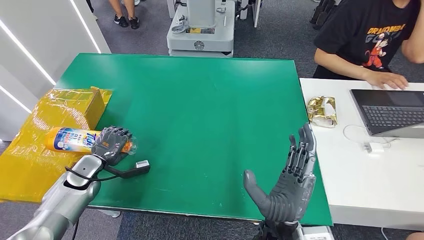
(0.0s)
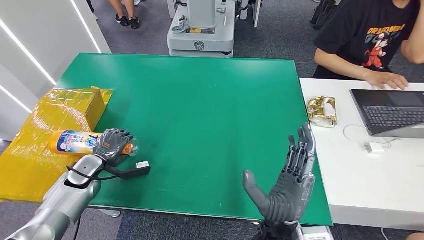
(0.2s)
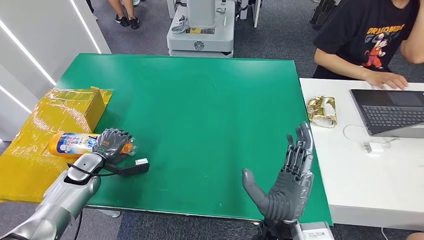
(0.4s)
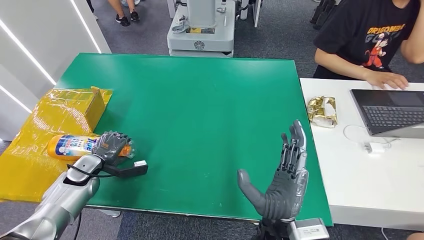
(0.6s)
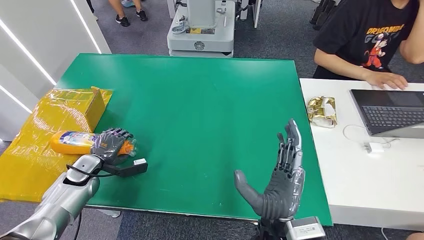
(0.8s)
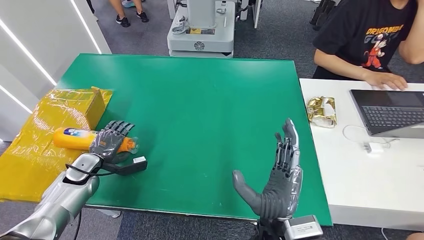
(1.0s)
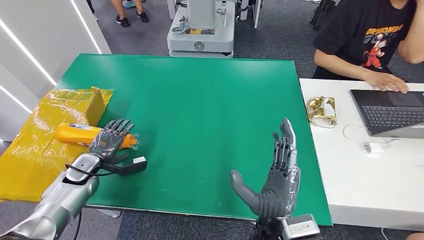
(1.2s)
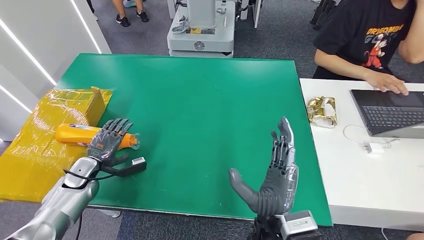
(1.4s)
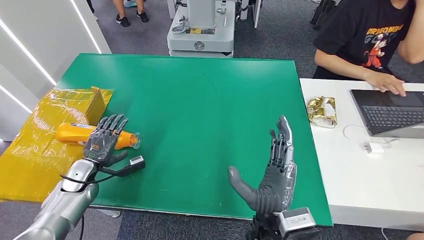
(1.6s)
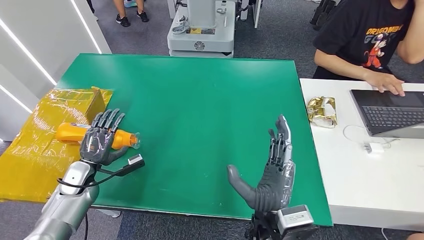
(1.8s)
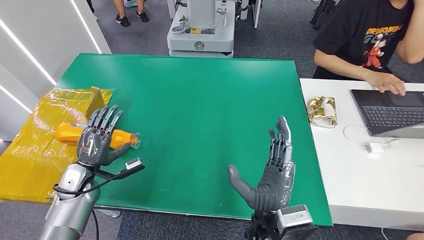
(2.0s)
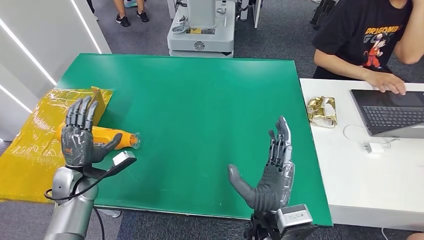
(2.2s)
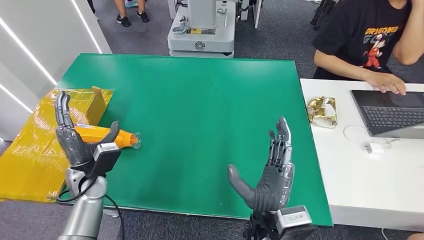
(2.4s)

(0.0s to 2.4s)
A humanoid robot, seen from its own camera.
Step, 0.0s - 2.2s: Turn the bottle to the front side.
0.0s - 1.2s: The hands move only a little.
1.2s - 2.4s: The left hand moves to the right and upward, approximately 10 cm.
